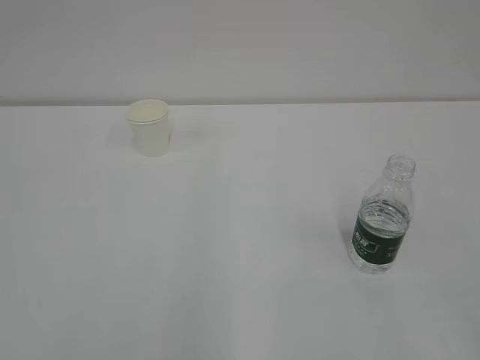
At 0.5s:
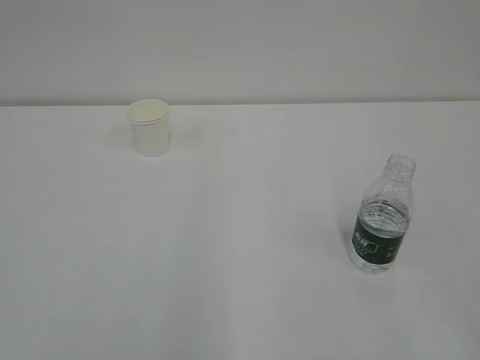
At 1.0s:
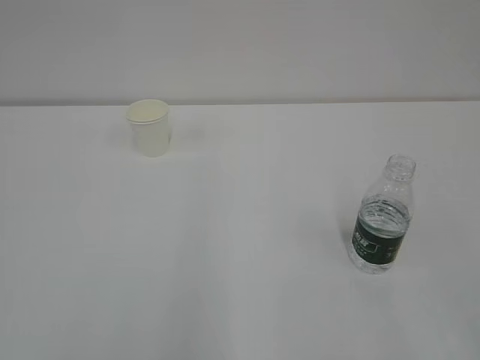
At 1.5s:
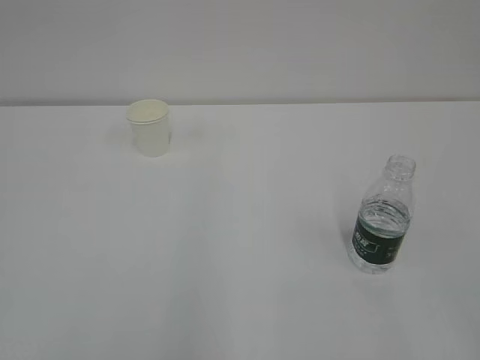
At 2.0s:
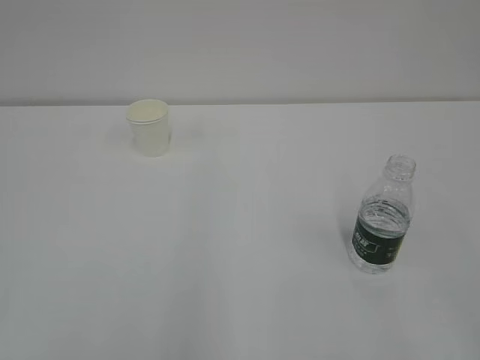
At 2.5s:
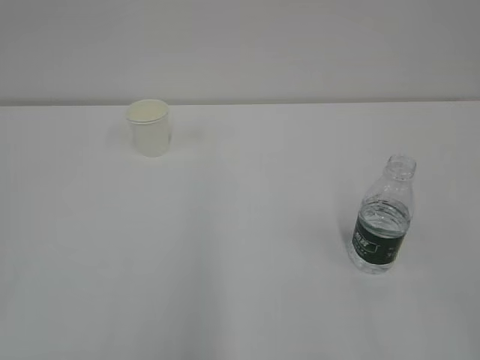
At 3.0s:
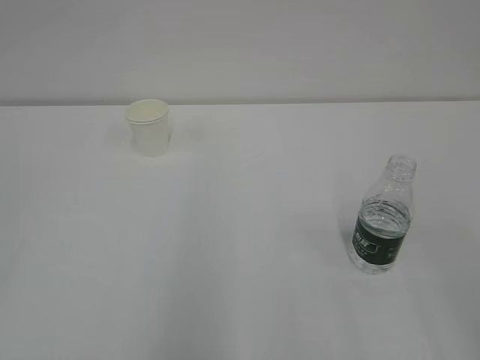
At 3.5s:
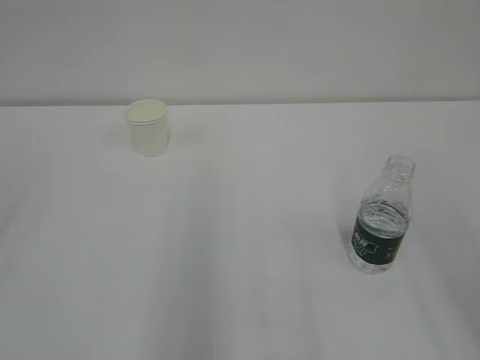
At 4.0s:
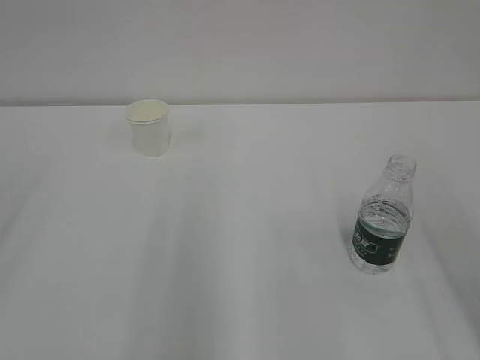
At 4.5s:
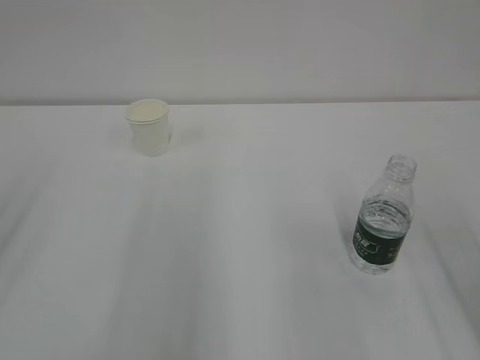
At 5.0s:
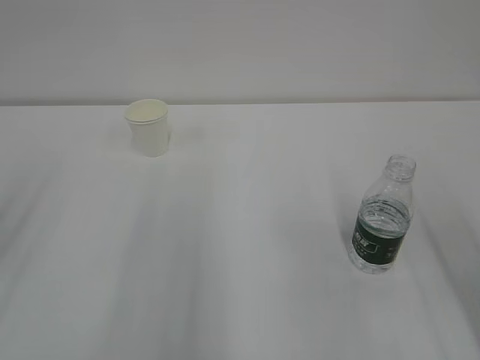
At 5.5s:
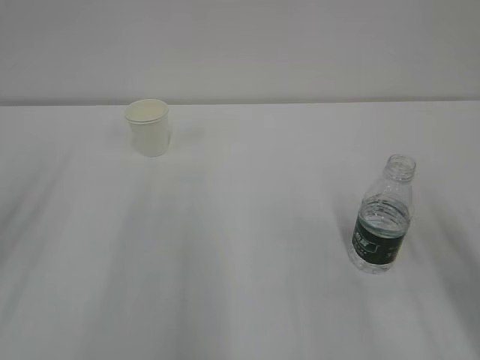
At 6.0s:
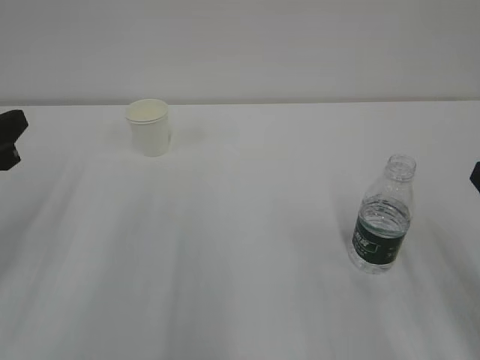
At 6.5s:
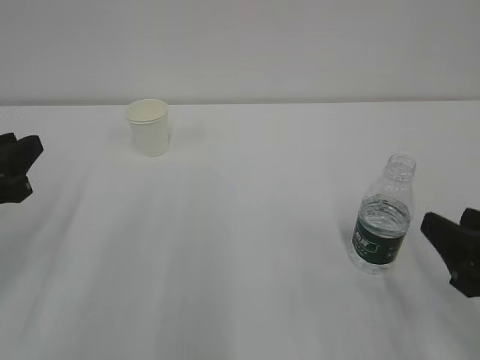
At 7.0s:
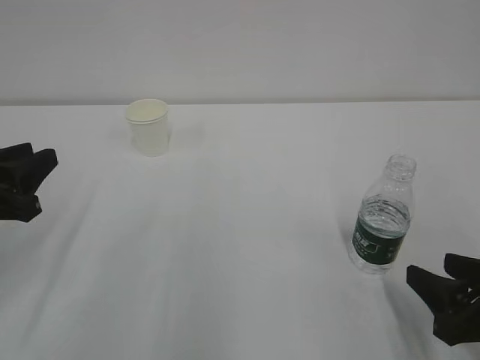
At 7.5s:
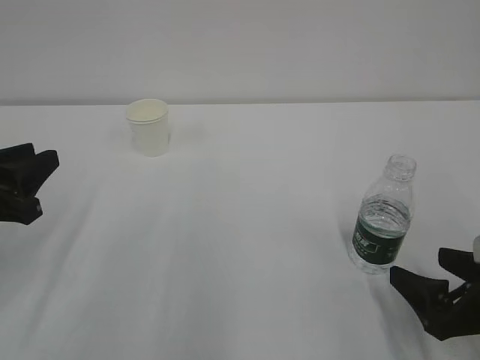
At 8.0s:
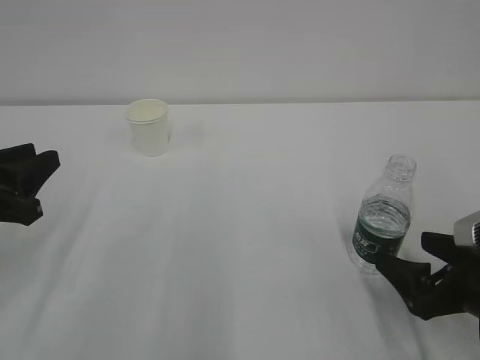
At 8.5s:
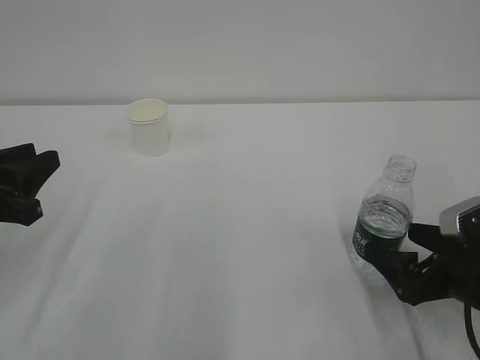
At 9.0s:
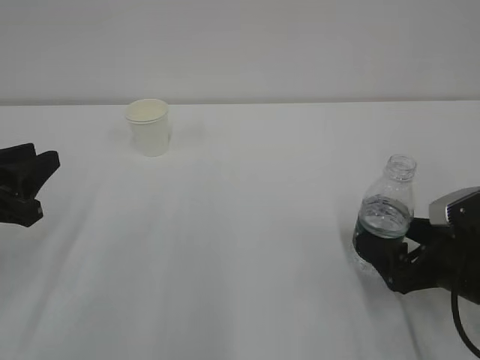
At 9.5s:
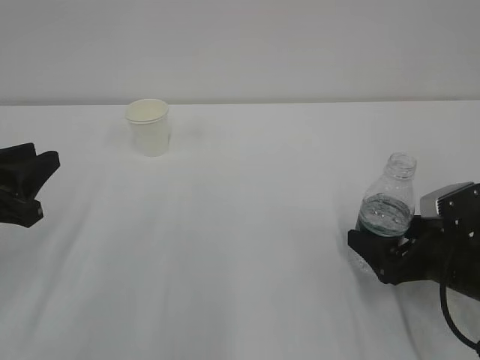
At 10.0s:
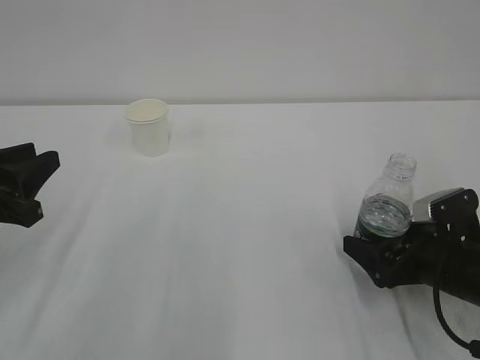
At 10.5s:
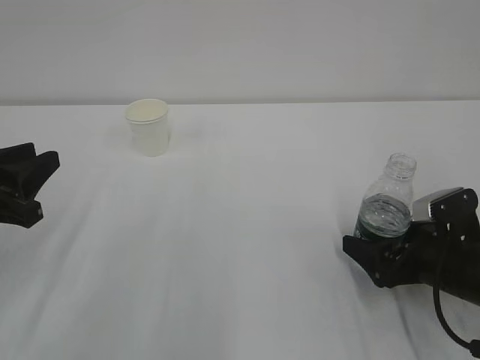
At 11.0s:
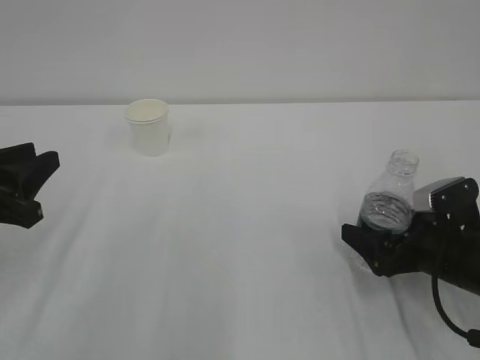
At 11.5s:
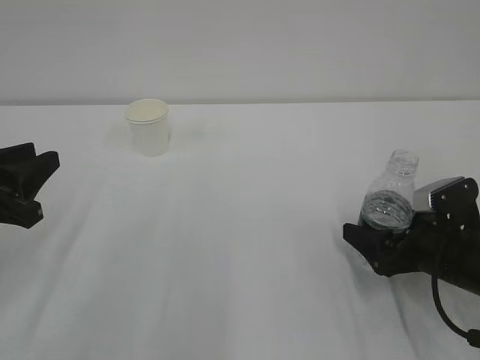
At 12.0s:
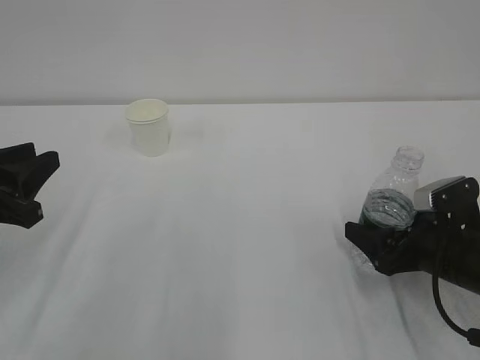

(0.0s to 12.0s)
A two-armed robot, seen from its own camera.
4.0s - 6.0s: The left gripper travels downward and forward by some 15 cm.
6.0s - 8.0s: The right gripper travels downward by about 10 cm, and opens.
8.0s - 10.0s: The right gripper shifts roughly 5 cm forward.
10.0s - 12.0s: The right gripper closes.

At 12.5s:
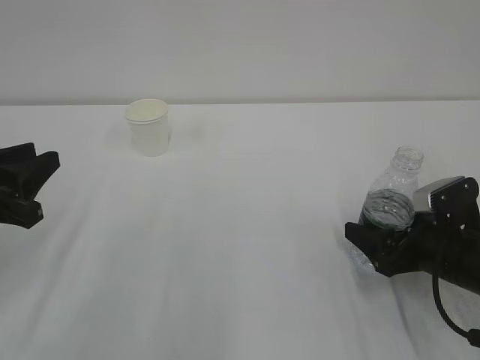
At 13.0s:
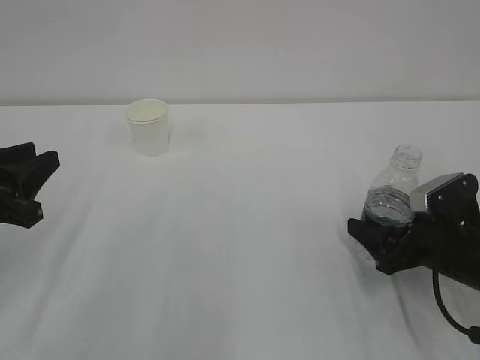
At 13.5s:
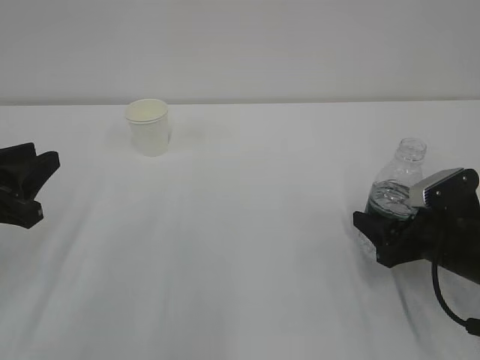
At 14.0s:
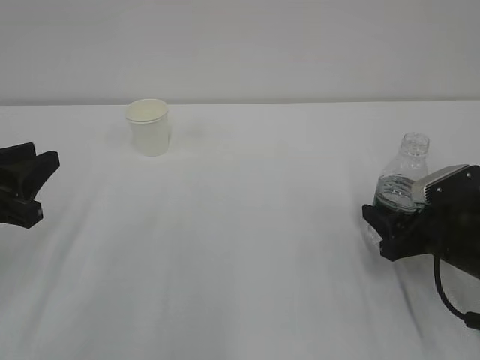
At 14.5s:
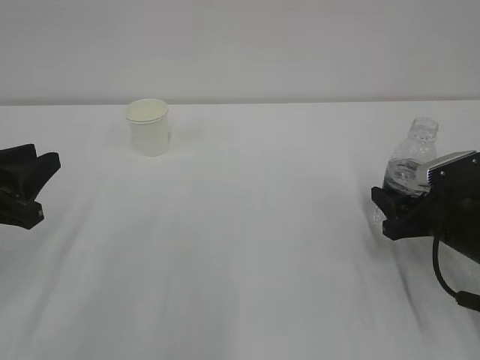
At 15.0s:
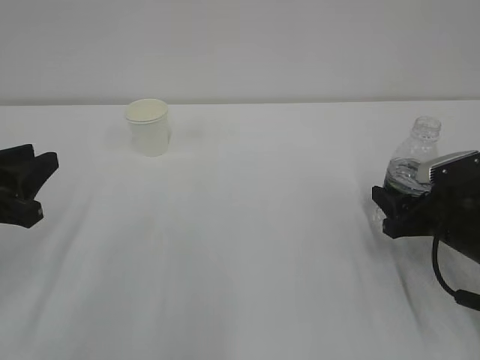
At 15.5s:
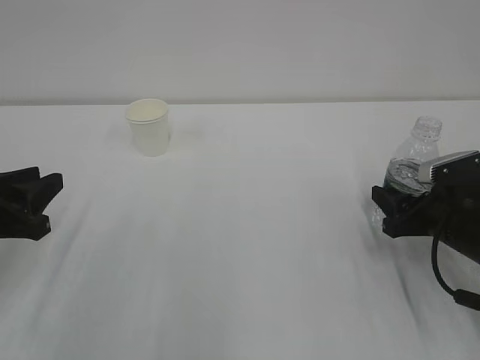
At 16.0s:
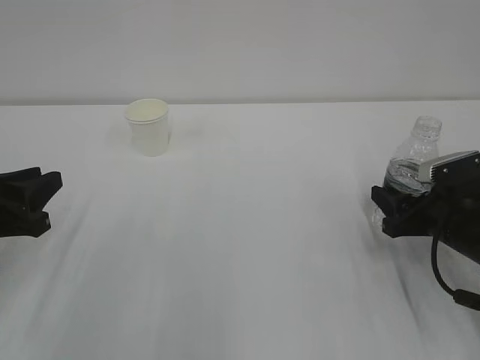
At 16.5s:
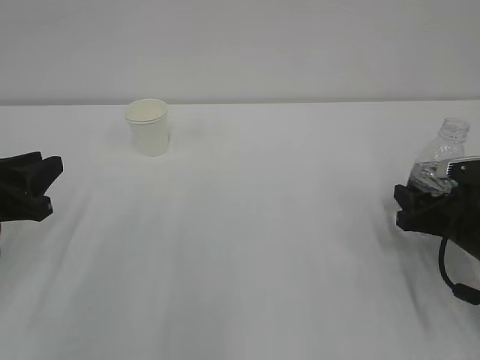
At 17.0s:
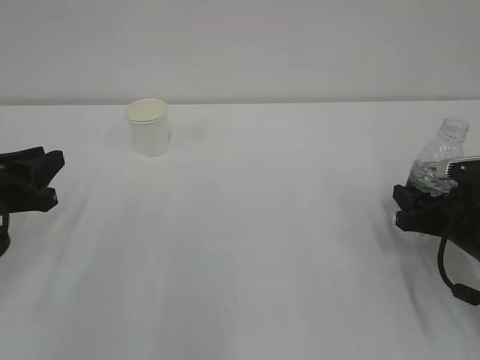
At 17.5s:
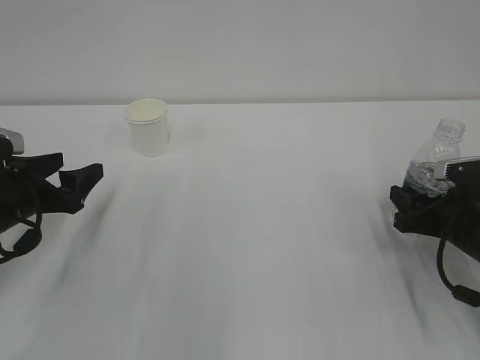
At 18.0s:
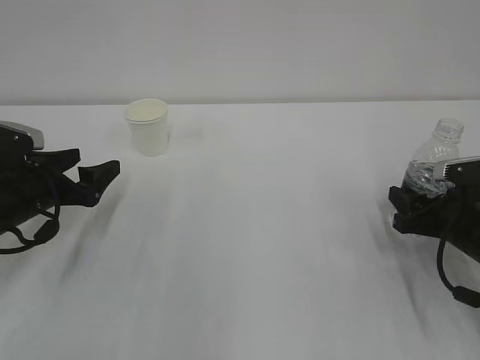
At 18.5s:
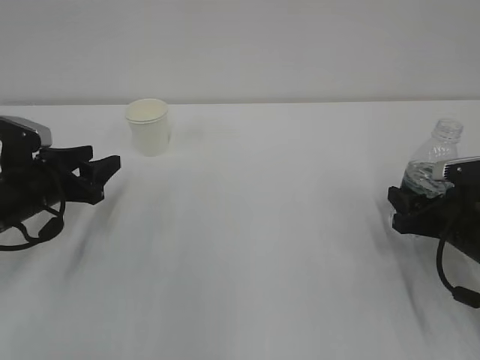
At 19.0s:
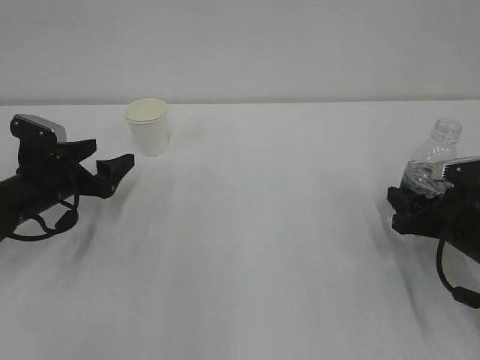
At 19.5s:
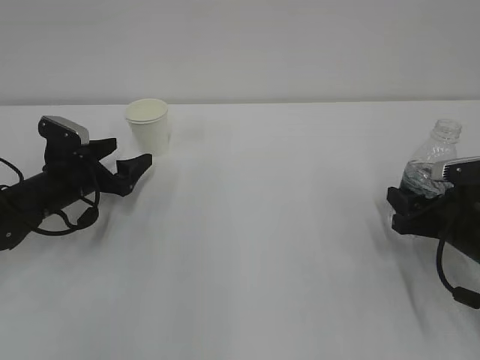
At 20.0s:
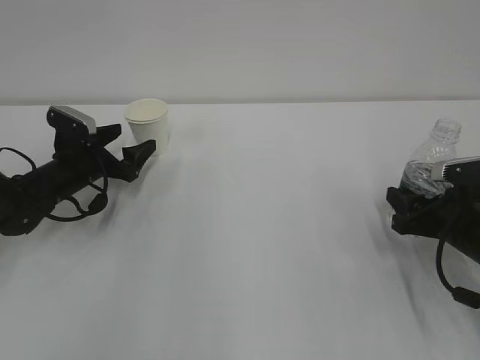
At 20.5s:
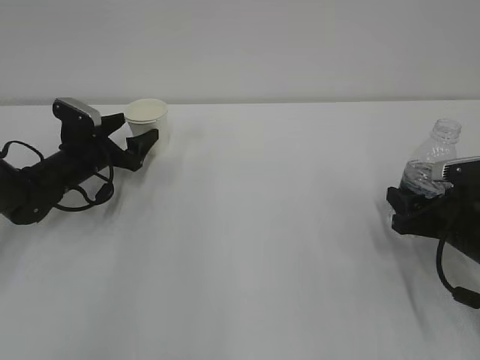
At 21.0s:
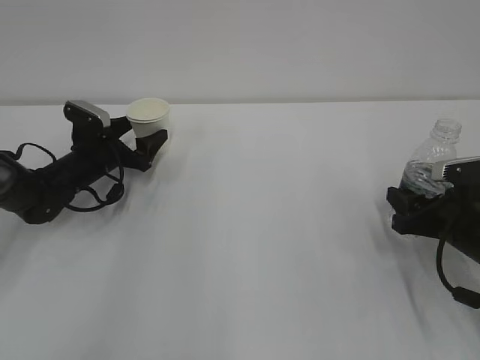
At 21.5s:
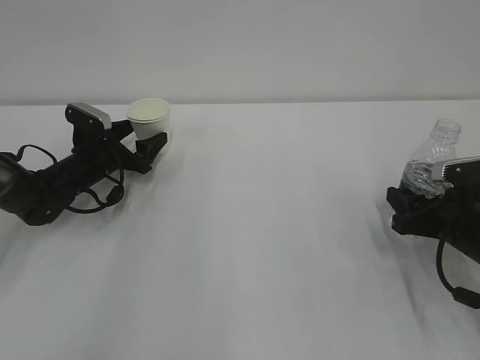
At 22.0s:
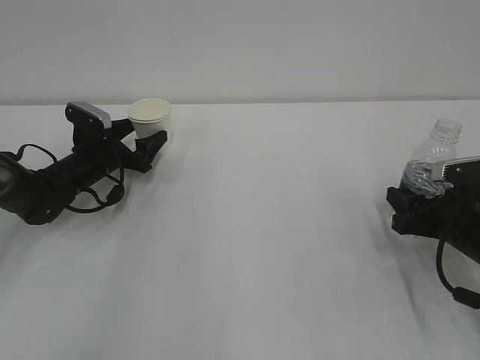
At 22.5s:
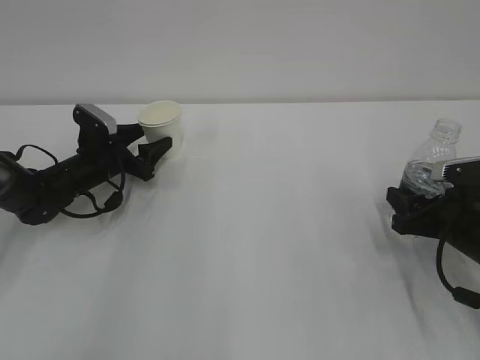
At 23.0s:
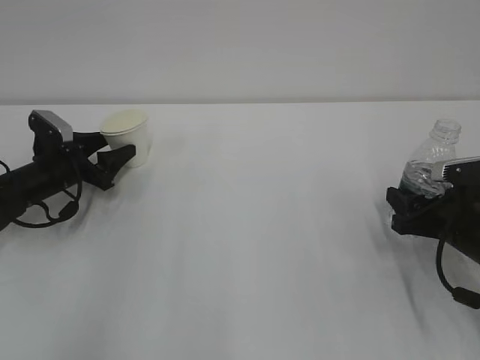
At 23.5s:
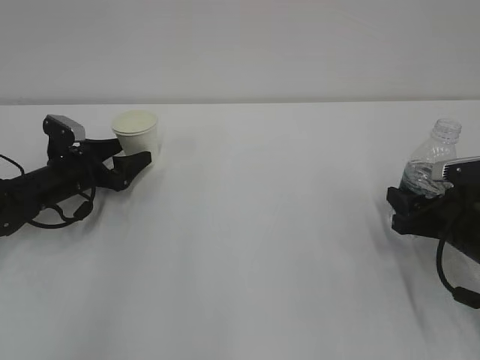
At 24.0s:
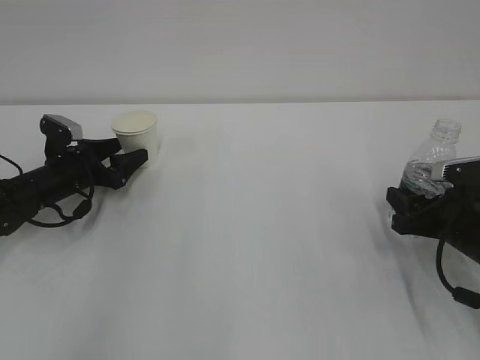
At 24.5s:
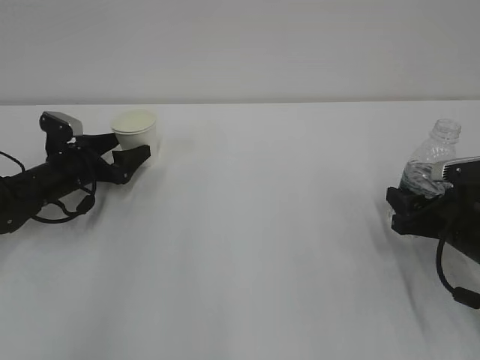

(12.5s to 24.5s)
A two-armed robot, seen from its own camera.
12.5s - 14.5s: The right gripper closes.
14.5s - 16.5s: The grippers stay close to where they were, moving slightly.
16.5s - 18.5s: The left gripper shifts about 10 cm forward and downward, and opens up.
18.5s - 20.5s: The left gripper goes roughly 10 cm forward, and opens its fingers.
20.5s - 22.5s: The left gripper closes up.
22.5s - 24.5s: The left gripper opens its fingers.

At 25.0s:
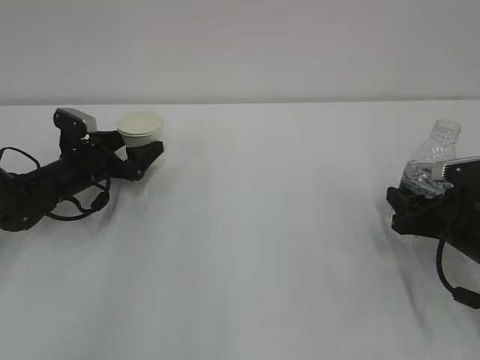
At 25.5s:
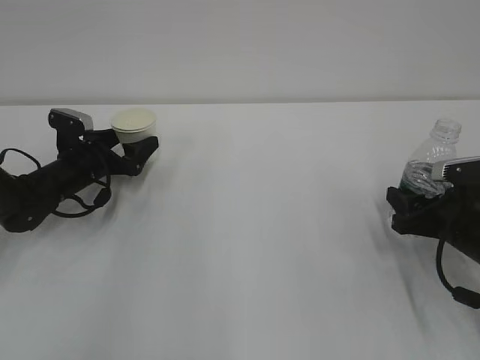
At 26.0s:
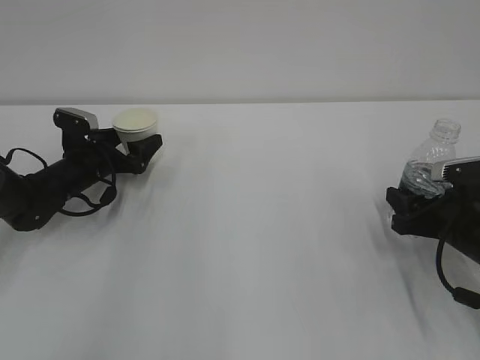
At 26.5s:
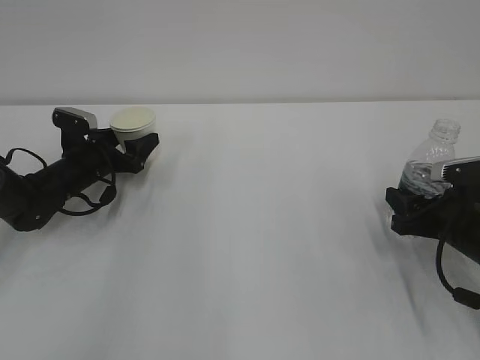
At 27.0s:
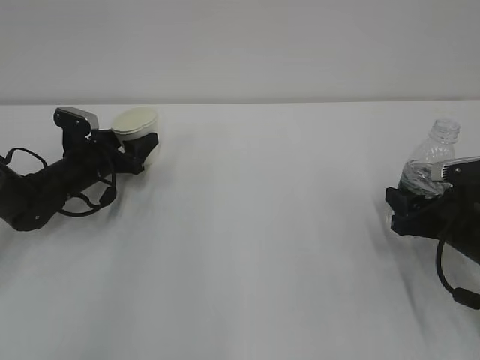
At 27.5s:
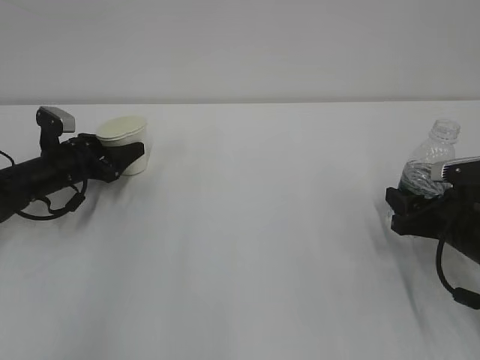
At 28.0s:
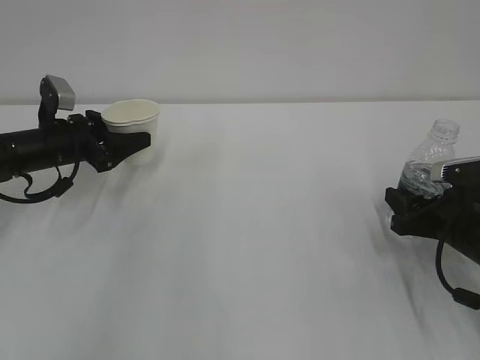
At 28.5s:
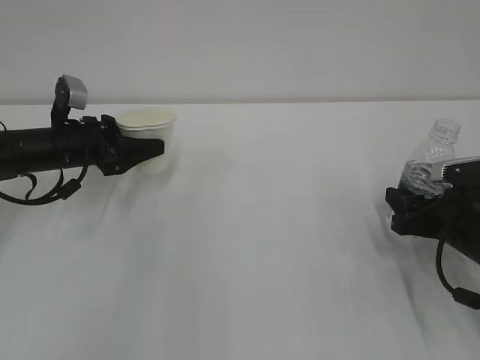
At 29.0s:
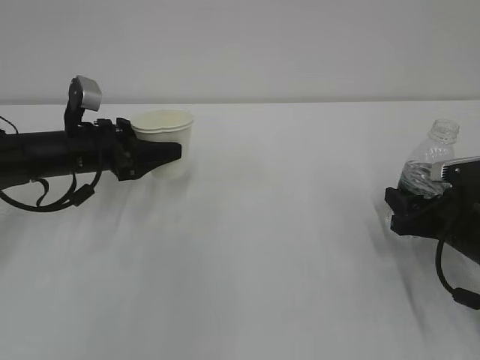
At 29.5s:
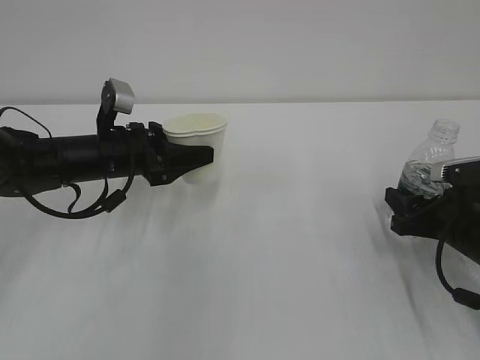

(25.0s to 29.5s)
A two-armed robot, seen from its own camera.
25.0s - 27.0s: The left gripper closes up.
27.0s - 29.5s: The left gripper is displaced upward, to the right and backward by some 15 cm.
